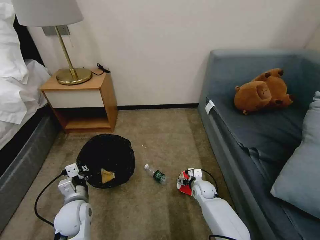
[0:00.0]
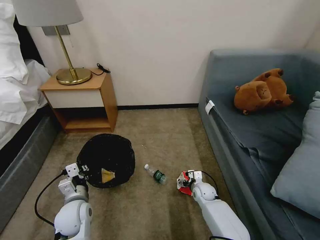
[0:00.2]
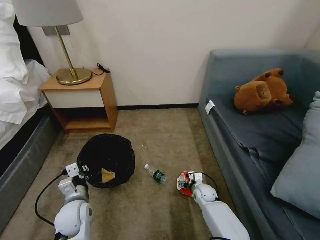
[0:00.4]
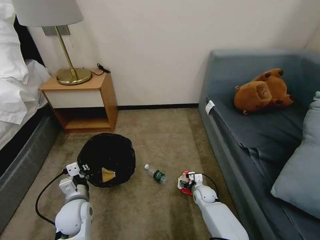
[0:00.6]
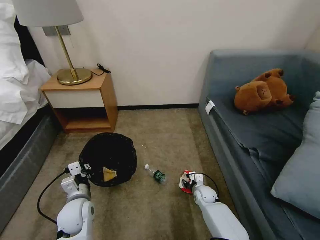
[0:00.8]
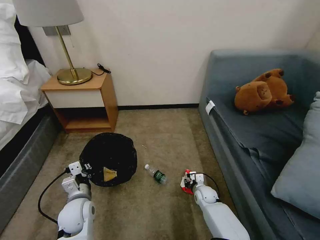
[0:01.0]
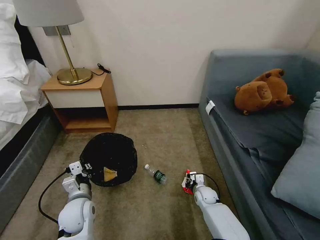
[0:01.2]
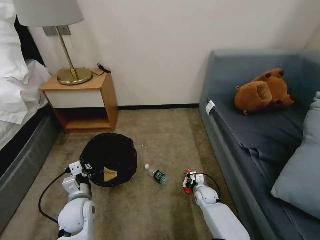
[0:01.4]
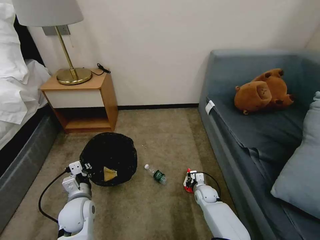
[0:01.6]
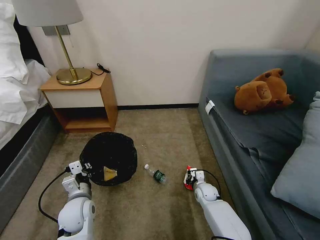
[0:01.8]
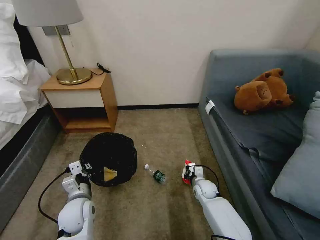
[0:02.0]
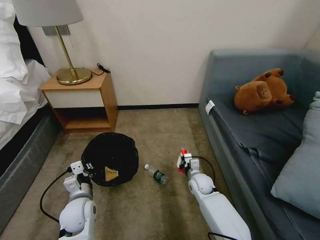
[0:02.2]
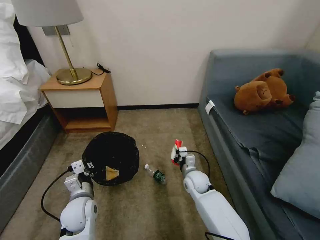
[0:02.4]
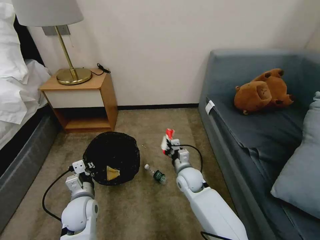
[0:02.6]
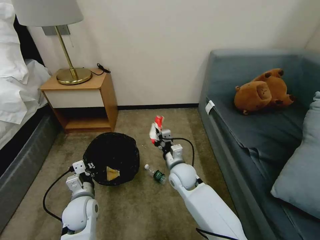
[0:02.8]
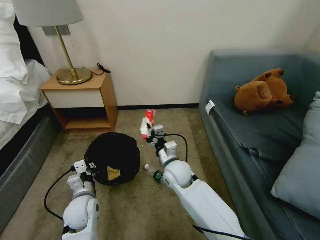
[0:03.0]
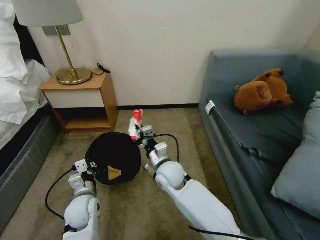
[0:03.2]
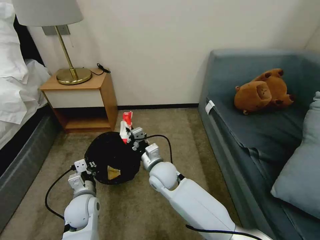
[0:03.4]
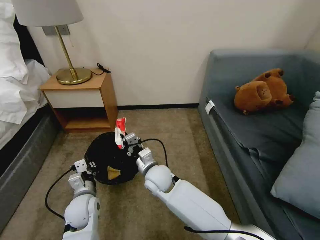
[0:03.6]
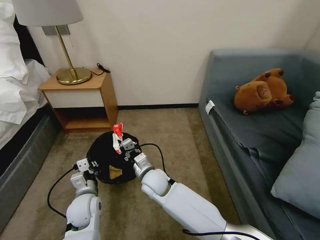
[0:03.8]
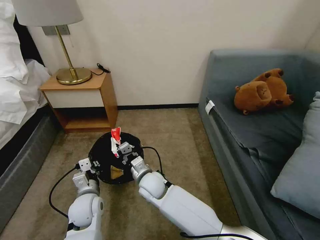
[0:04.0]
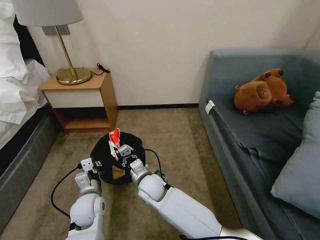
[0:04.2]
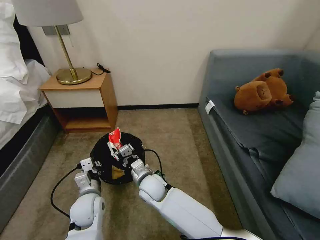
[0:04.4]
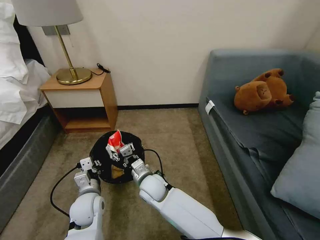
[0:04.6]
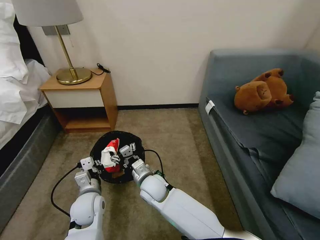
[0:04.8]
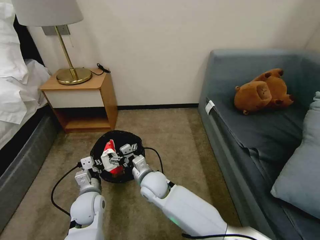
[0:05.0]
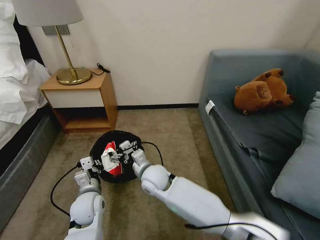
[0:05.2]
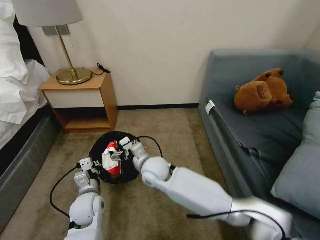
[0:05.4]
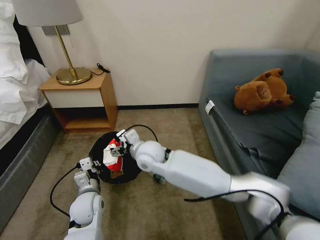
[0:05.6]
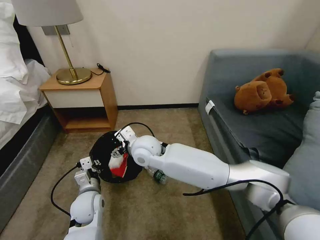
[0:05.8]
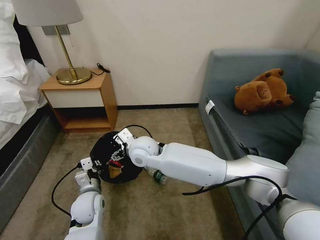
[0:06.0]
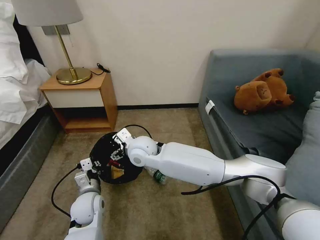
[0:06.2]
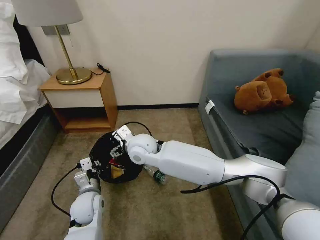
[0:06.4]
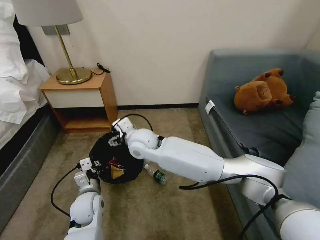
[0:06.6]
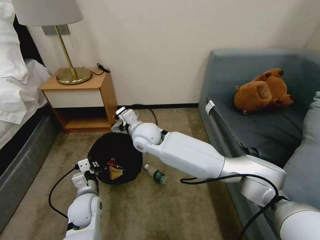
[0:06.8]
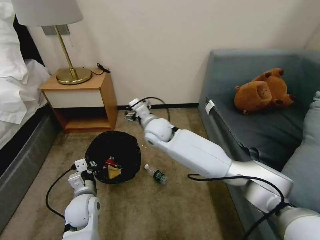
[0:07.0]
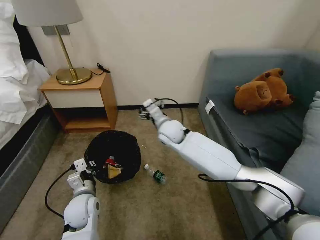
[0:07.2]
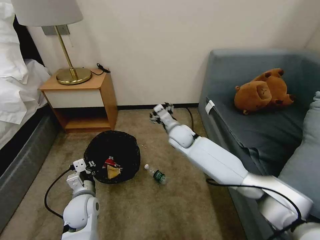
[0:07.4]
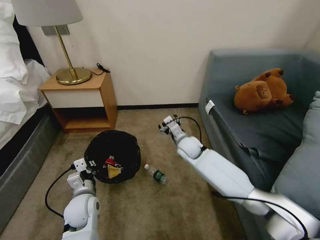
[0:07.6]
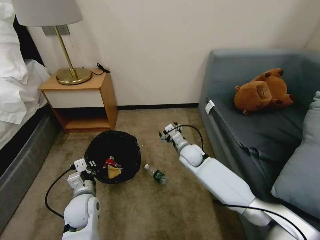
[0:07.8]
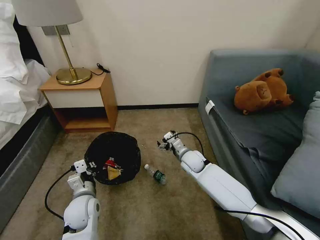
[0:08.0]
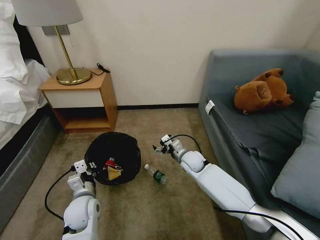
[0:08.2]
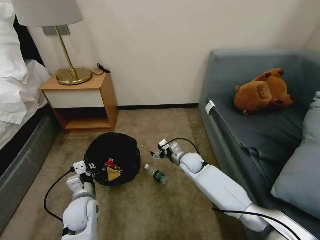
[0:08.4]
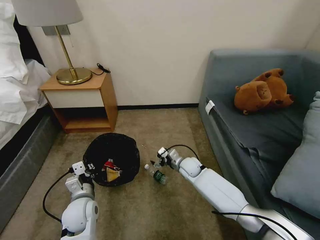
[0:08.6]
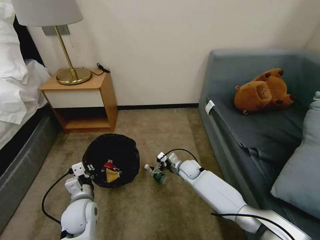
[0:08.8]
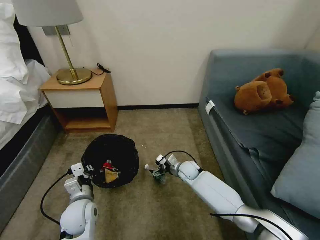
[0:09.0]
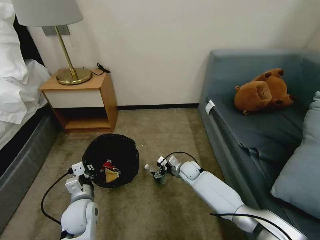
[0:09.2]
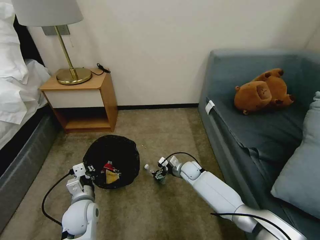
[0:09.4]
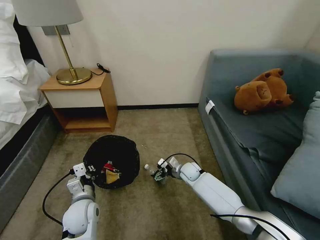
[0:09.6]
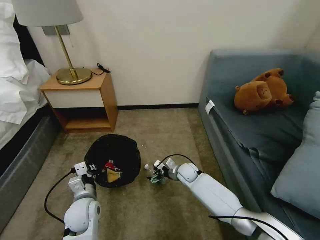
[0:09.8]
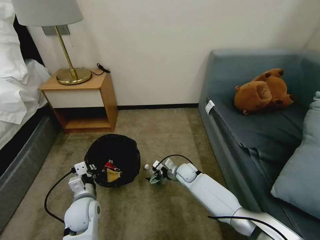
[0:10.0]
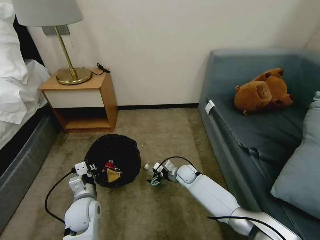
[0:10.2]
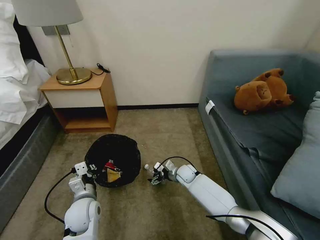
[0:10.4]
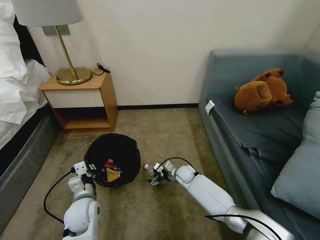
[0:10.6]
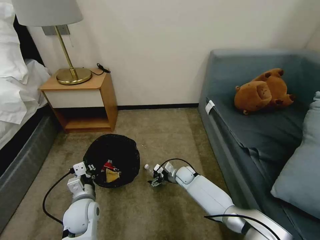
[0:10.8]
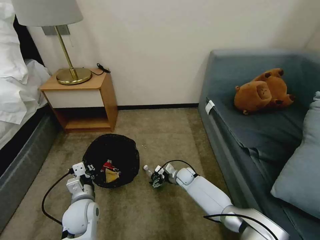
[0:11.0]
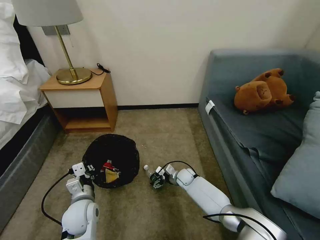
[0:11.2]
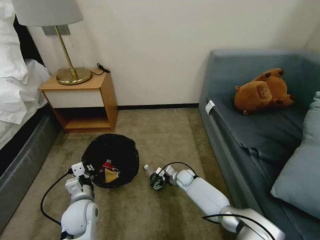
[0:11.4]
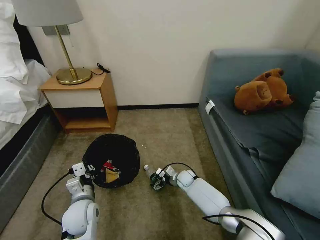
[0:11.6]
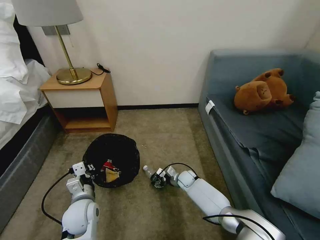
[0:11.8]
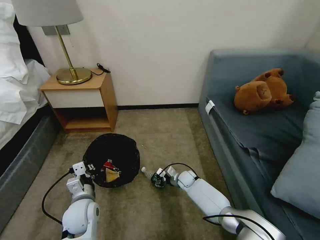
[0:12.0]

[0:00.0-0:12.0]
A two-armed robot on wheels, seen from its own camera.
Task of the whole recording: Pick up the trash bin, then pick up the garbage on the floor and place it into the trash bin.
0:00.0 to 0:01.6: The right gripper closes up.
0:01.6 to 0:03.0: The right gripper is displaced upward and to the left by roughly 25 cm.
0:03.0 to 0:04.4: The right gripper travels to the left and downward by roughly 10 cm, and opens.
0:04.4 to 0:06.0: The right gripper travels upward and forward by approximately 15 cm, and opens its fingers.
0:06.0 to 0:07.6: The right gripper heads to the right, downward and forward, covering roughly 20 cm.
0:07.6 to 0:09.0: The right gripper is displaced downward by approximately 15 cm.
0:09.0 to 0:10.4: The grippers make only small movements.
0:10.4 to 0:12.0: The right gripper travels downward by roughly 5 cm, and closes up.

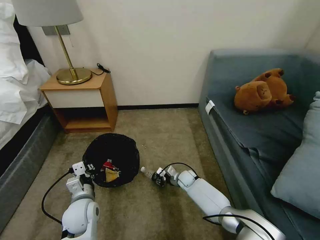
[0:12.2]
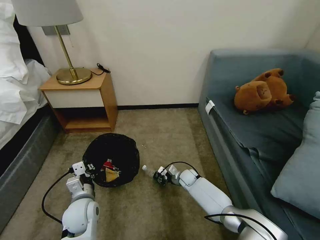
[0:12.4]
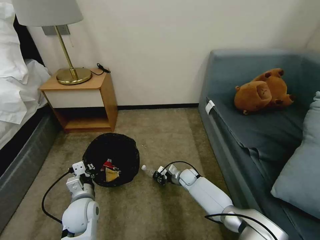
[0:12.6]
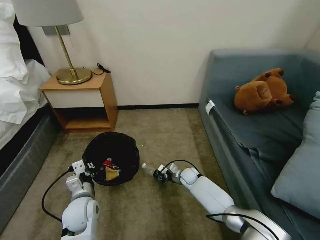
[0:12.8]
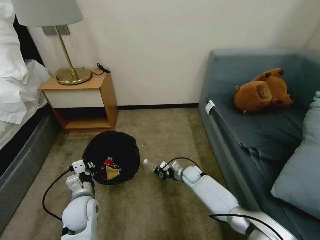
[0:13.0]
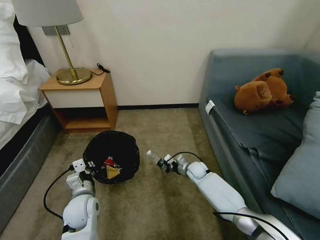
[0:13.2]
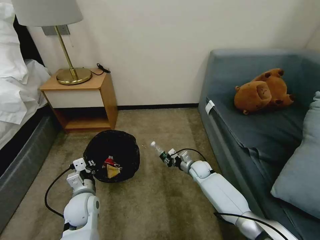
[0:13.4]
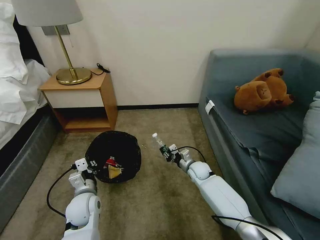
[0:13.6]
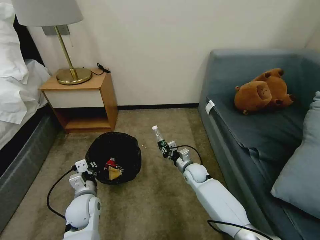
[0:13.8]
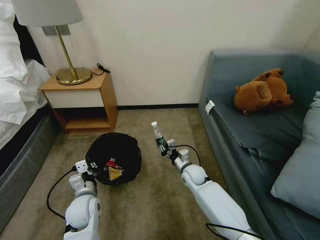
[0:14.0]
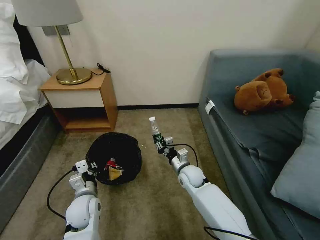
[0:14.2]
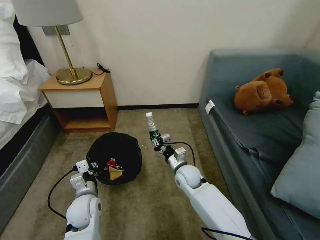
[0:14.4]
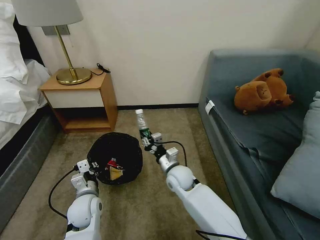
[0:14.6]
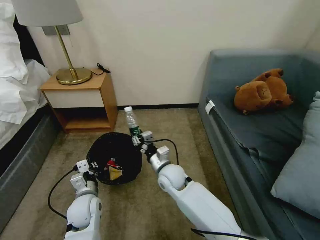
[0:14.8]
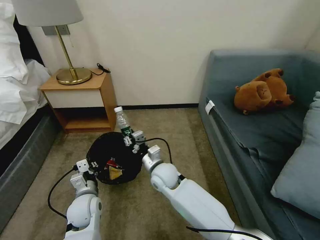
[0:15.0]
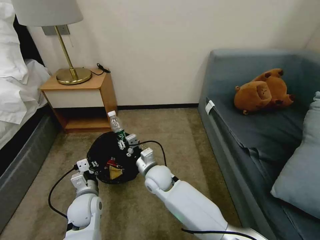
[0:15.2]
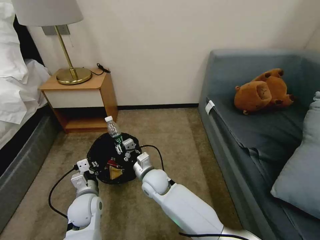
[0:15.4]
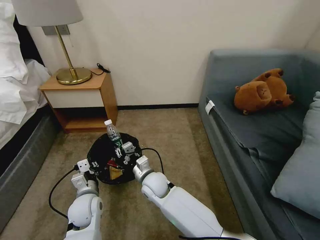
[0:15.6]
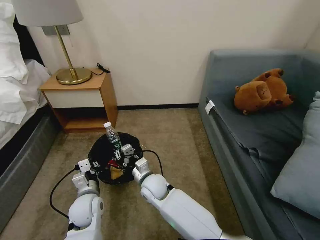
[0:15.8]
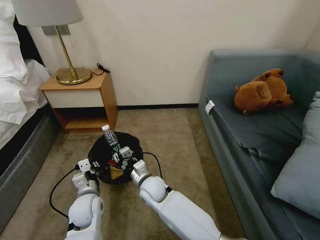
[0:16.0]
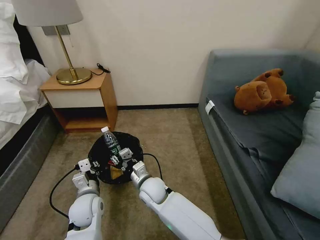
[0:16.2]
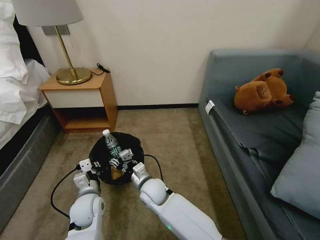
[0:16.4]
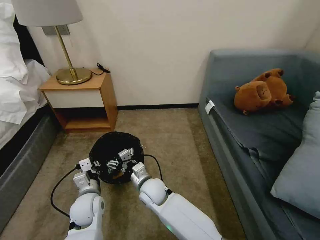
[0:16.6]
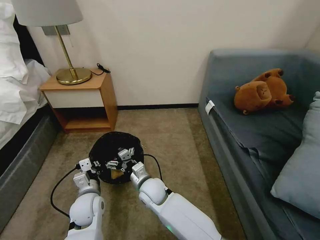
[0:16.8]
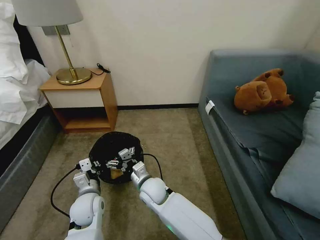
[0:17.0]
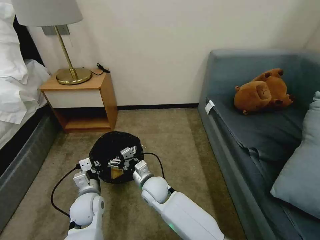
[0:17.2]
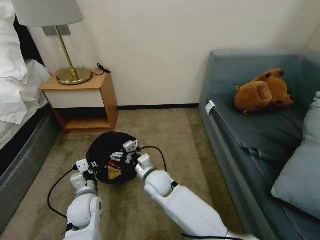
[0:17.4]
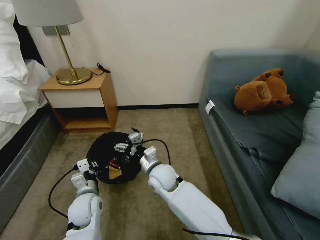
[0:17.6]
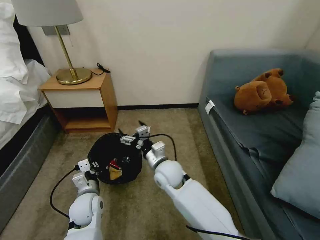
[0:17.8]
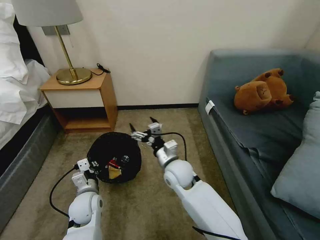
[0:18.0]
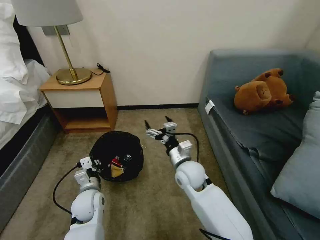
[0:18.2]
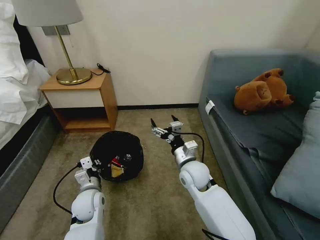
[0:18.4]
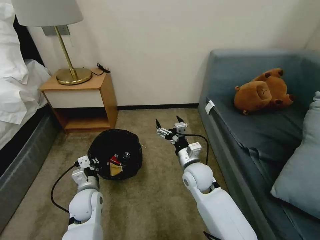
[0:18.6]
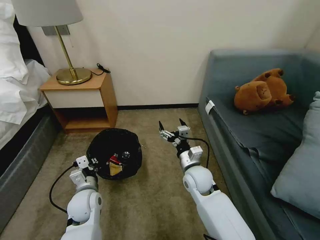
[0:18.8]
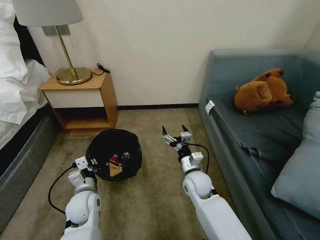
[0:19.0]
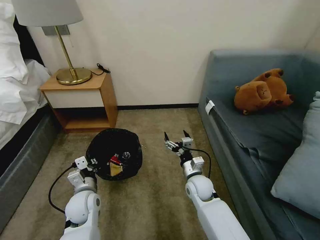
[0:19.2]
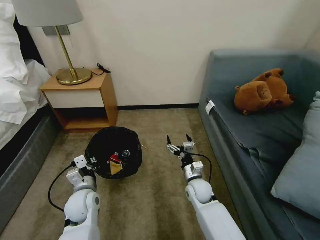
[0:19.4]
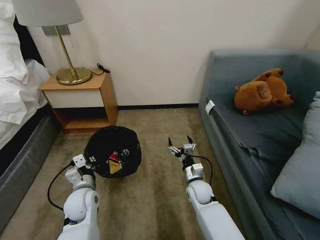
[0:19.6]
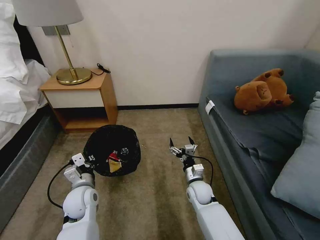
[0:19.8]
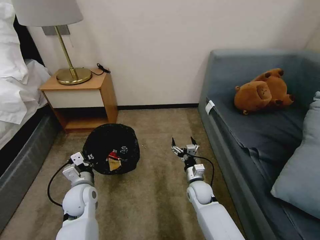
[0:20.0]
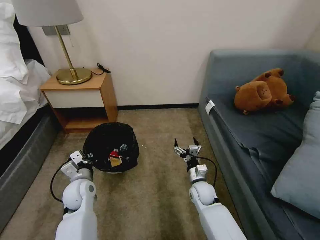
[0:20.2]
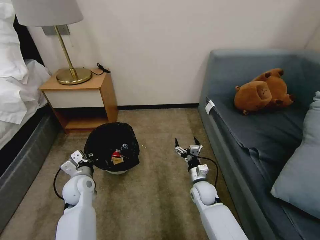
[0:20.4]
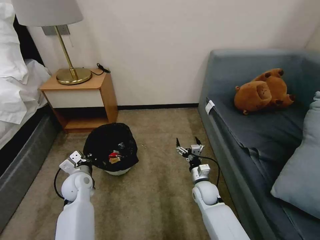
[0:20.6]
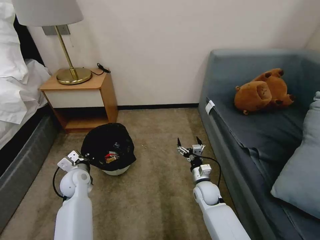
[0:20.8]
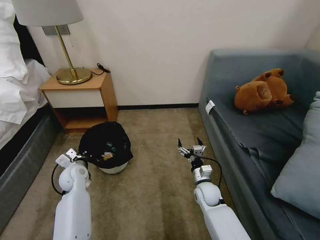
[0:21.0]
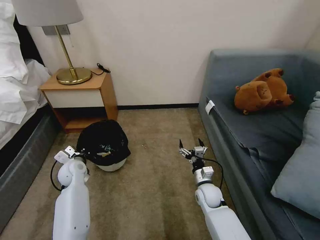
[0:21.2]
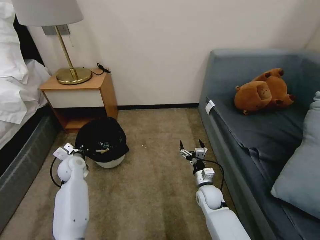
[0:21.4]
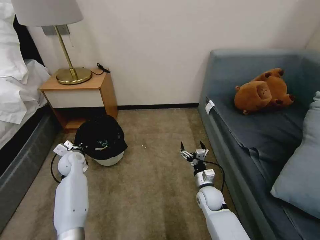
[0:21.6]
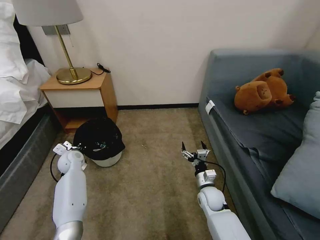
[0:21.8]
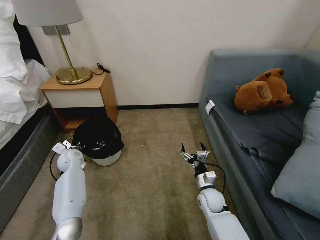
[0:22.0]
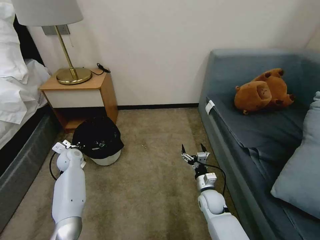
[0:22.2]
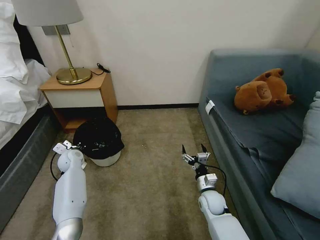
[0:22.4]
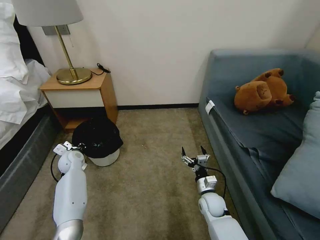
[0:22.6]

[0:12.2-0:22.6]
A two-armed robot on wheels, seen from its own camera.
Task of the whole recording: Pick up the trash bin, then pick up the garbage on the floor and place it into the trash bin.
0:12.2 to 0:13.6: The right gripper goes approximately 10 cm upward.
0:13.6 to 0:15.2: The right gripper is displaced to the left, upward and backward by some 25 cm.
0:15.2 to 0:16.6: The right gripper changes place by some 5 cm, and opens its fingers.
0:16.6 to 0:18.2: The right gripper is displaced to the right and upward by roughly 15 cm.
0:18.2 to 0:19.6: The right gripper goes approximately 15 cm downward and to the right.
0:19.6 to 0:21.2: The left gripper is displaced forward and to the left by approximately 15 cm.
0:21.2 to 0:22.6: The left gripper is displaced forward by roughly 5 cm.
